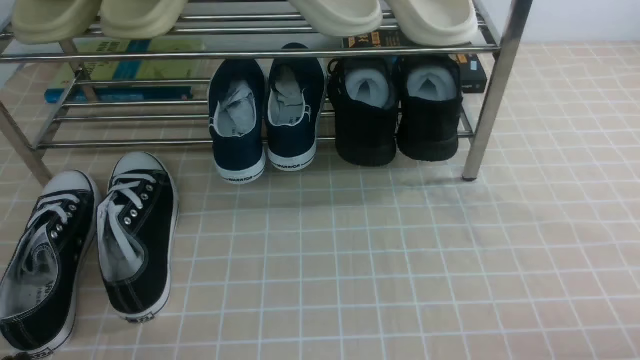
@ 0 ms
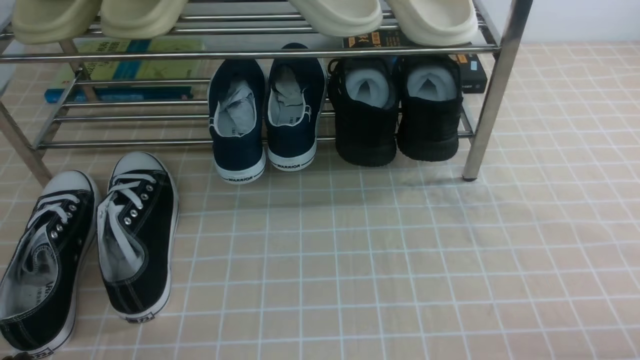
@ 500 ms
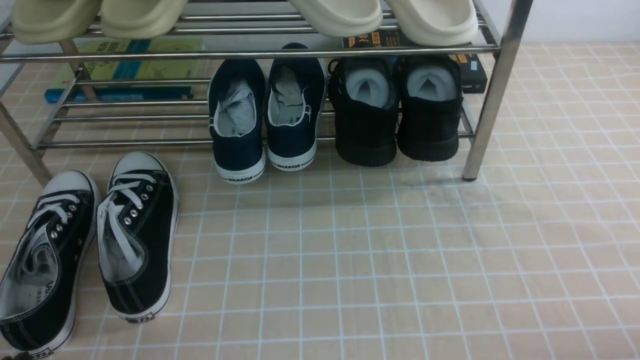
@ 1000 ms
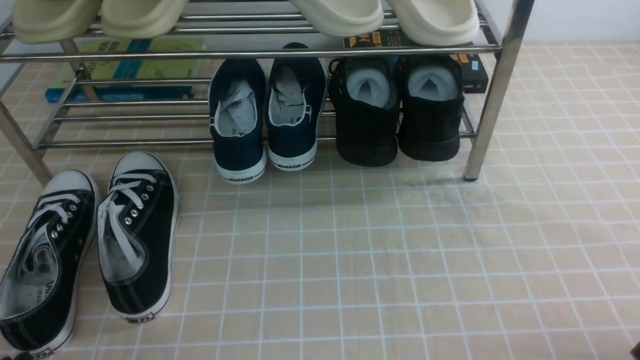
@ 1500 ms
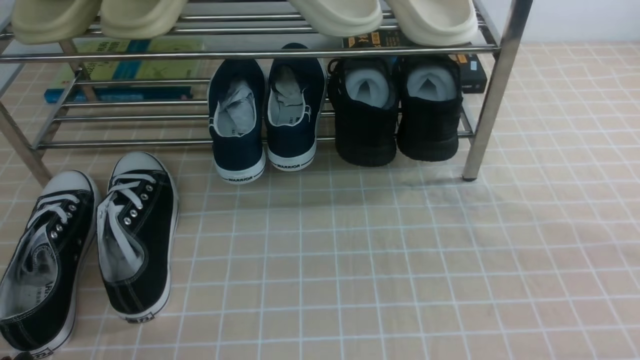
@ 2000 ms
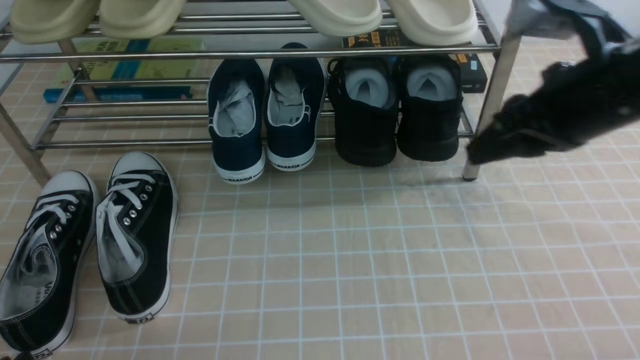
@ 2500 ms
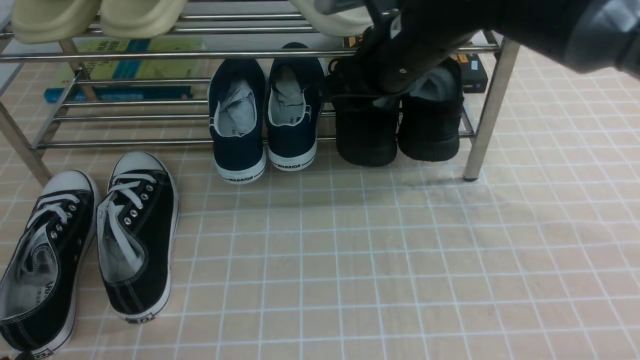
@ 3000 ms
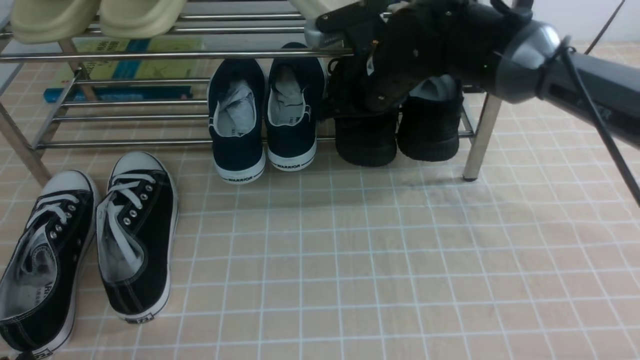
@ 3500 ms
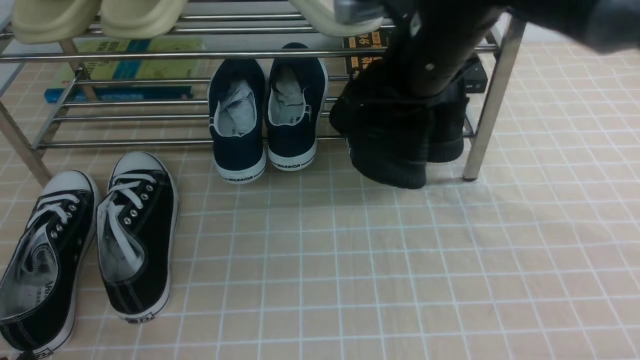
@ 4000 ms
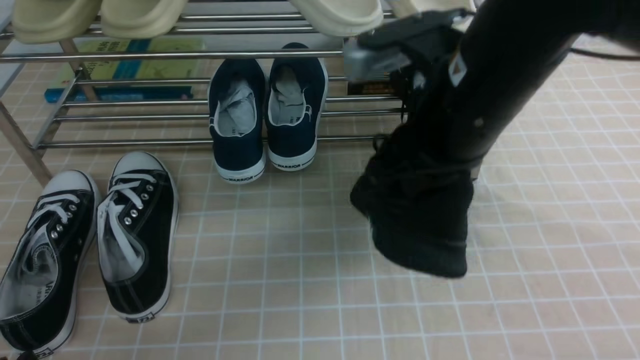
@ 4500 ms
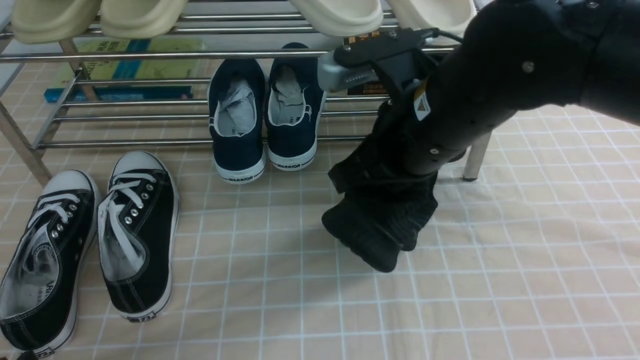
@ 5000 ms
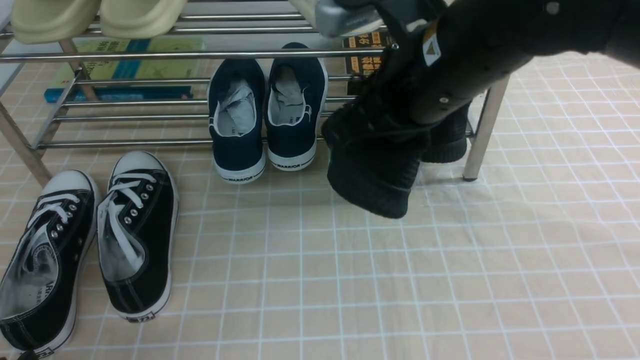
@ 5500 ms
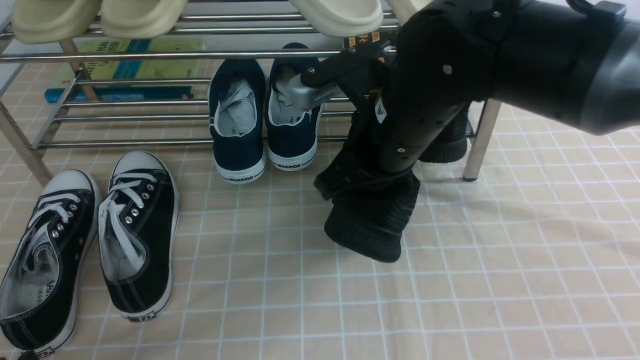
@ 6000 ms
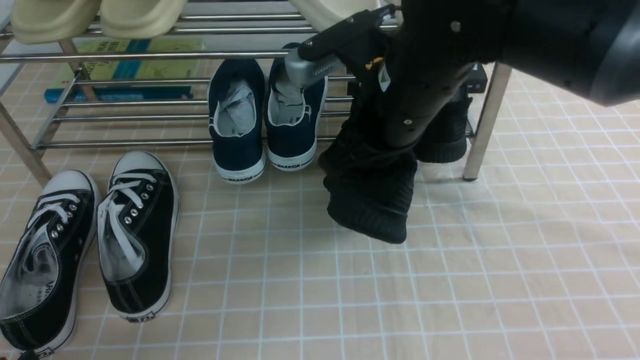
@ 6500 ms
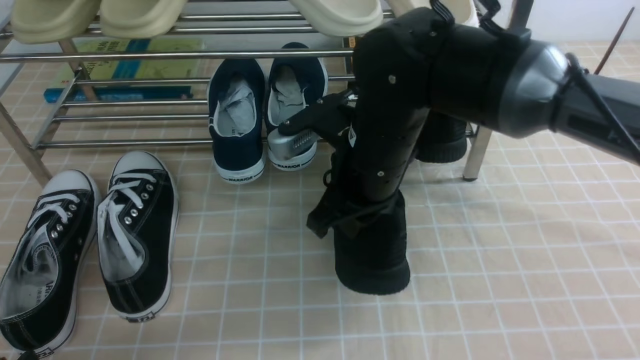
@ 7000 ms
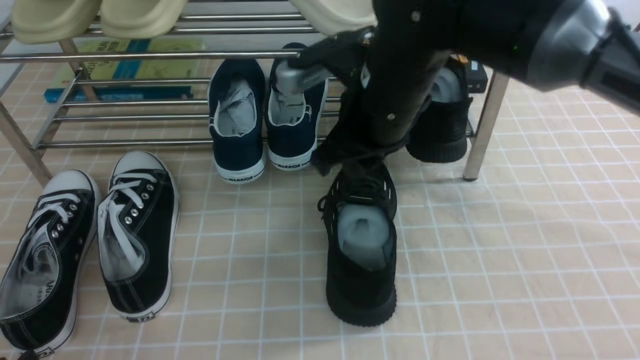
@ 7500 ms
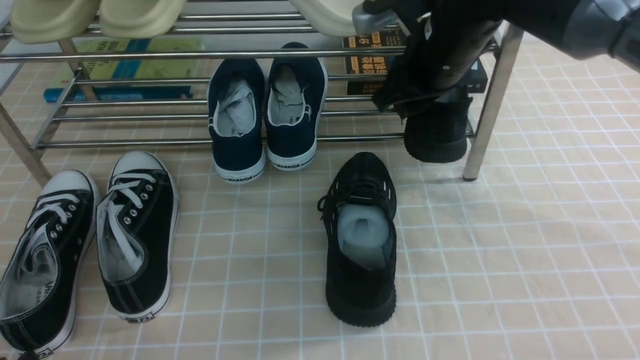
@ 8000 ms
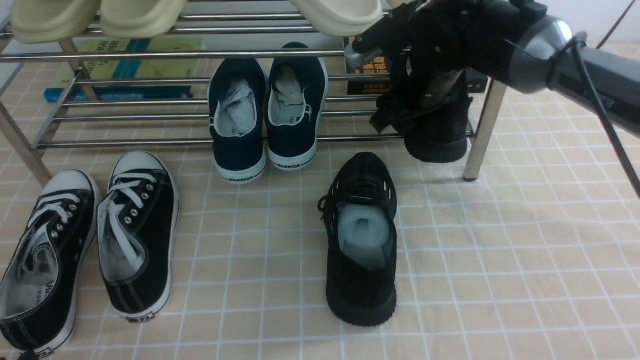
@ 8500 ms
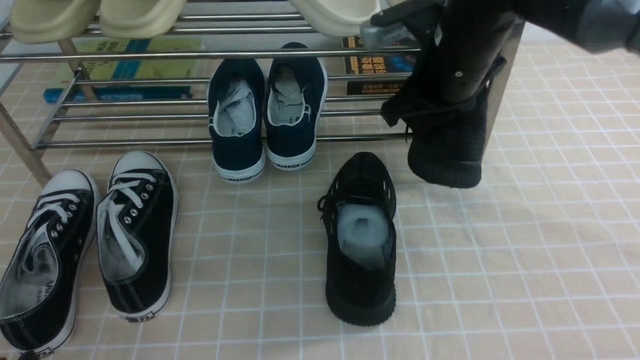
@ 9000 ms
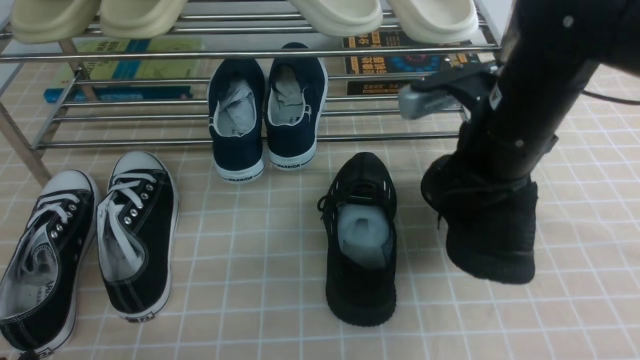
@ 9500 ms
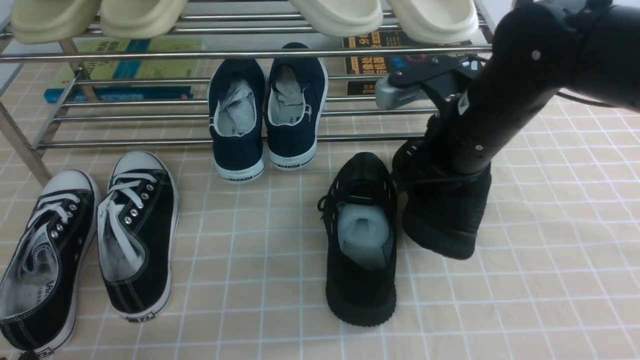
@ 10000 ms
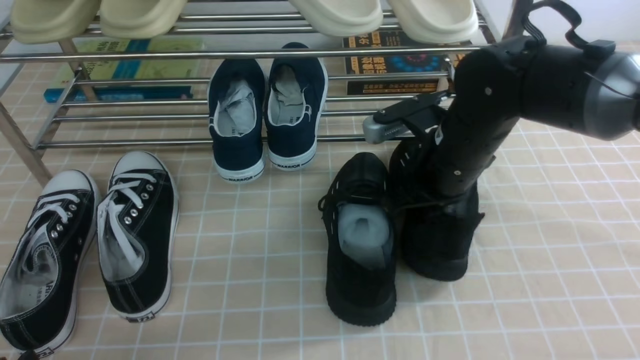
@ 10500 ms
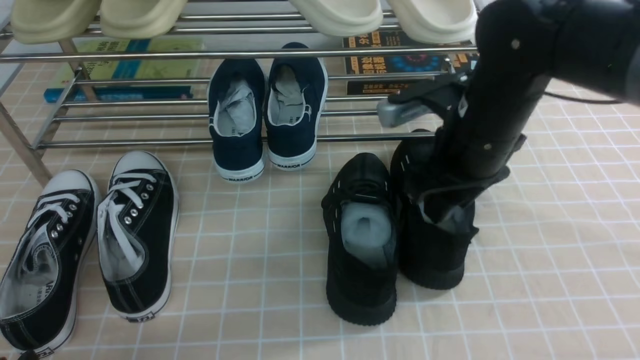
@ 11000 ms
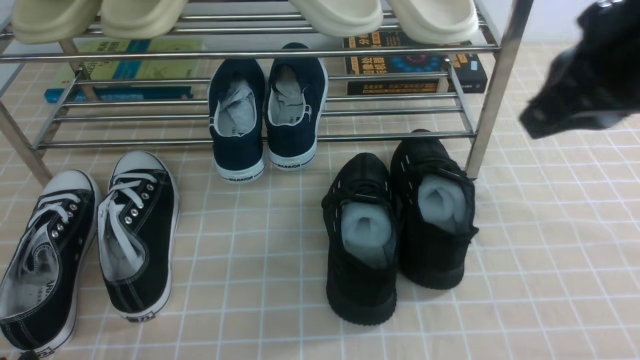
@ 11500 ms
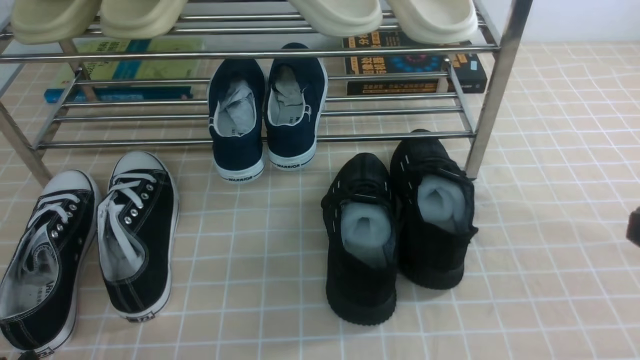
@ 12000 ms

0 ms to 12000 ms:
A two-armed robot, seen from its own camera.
Step, 0 ms to 3500 ms: use the right arm to clamp a shoe on the right side of the shoe rack.
Step, 4000 ms to 7000 ms: use the right arm to take out the clamped shoe from the shoe rack and put it down.
Step, 7500 ms to 8500 ms: use the right arm to clamp a shoe on the right side of the shoe rack.
Step, 9000 ms to 10500 ms: use the right arm to take out the clamped shoe from the shoe rack and put it down.
2000 ms to 4000 ms: The right gripper shifts about 35 cm forward and to the left, and opens, then closes once more; the left gripper opens.
4000 ms to 6000 ms: The right gripper travels backward by some 10 cm.
6000 ms to 8000 ms: The right gripper goes about 10 cm forward, and opens up.
8000 ms to 10000 ms: The right gripper moves backward, approximately 5 cm, and closes.
10000 ms to 12000 ms: The right gripper is displaced backward and to the right by approximately 25 cm, and opens, then closes once more.

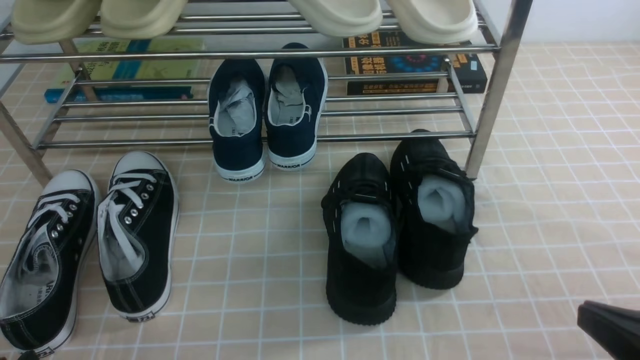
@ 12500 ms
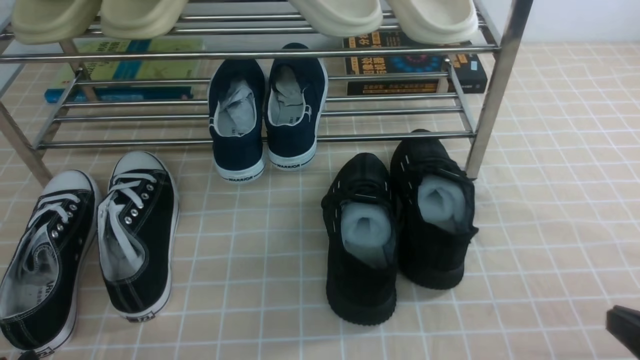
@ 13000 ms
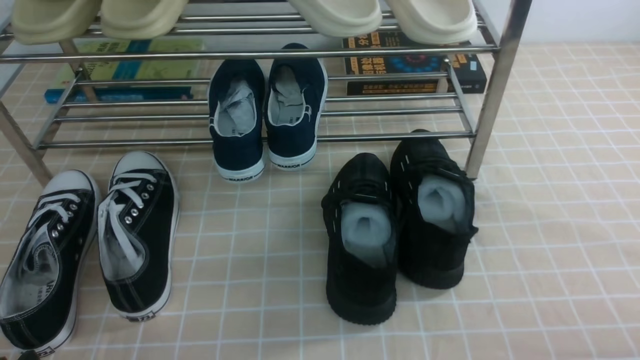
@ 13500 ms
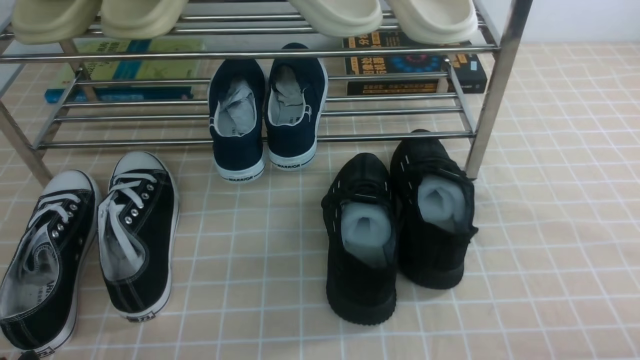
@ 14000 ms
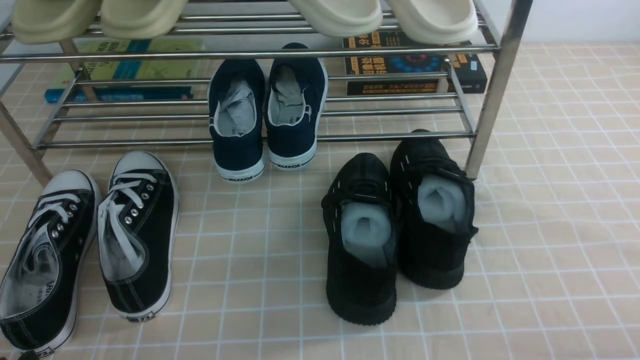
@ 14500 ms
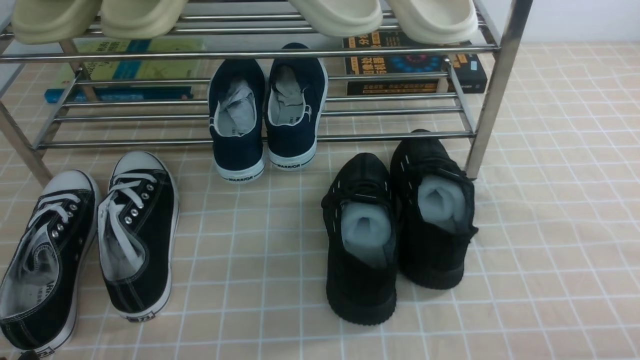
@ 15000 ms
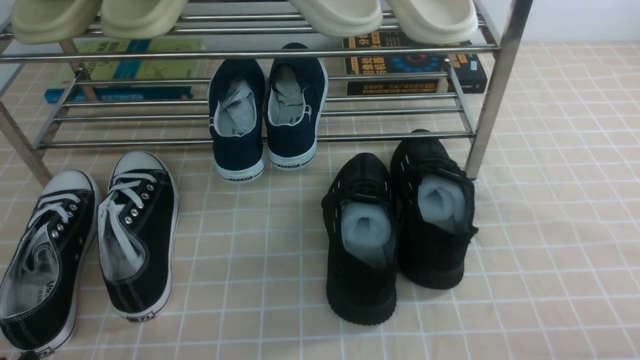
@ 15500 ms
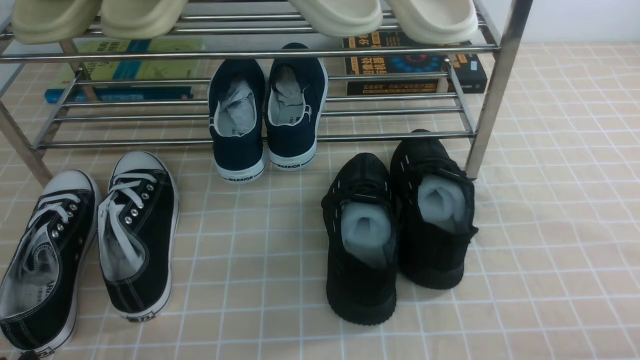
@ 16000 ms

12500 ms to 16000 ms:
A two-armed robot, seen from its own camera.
12500 ms to 14500 ms: The right gripper goes about 10 cm downward and to the right.
14500 ms to 16000 ms: Both grippers stay about where they are.

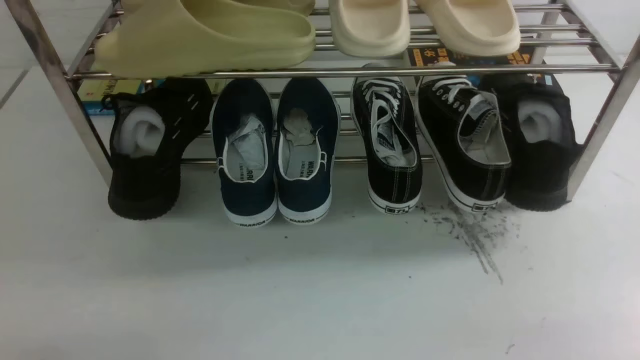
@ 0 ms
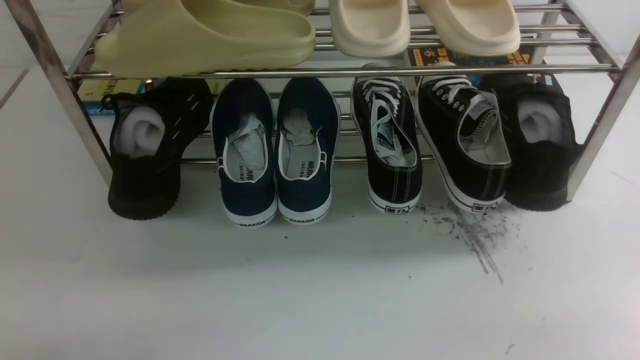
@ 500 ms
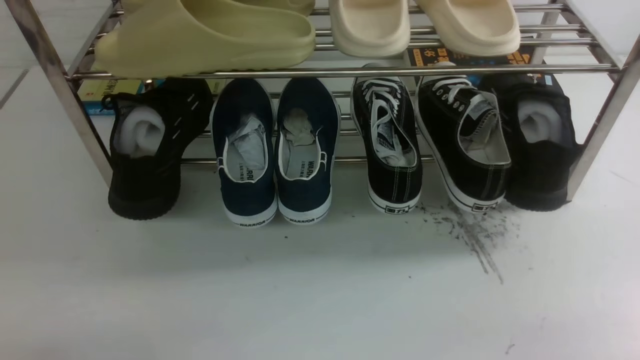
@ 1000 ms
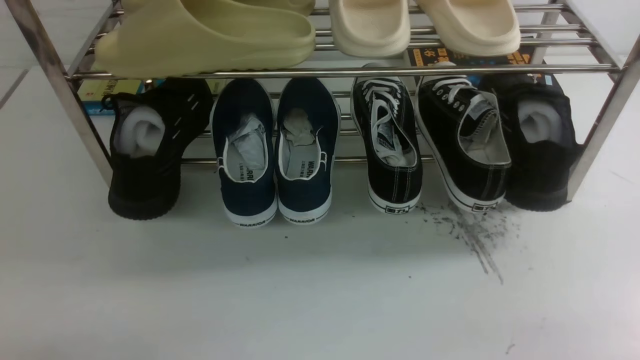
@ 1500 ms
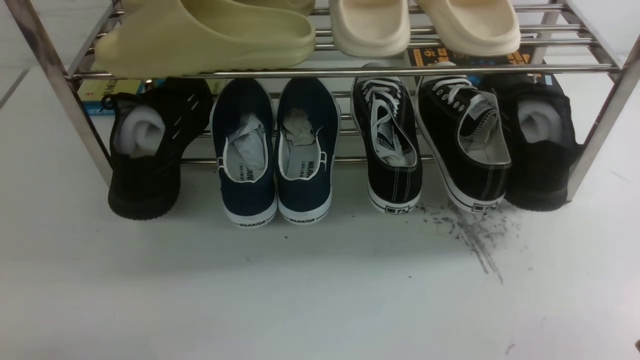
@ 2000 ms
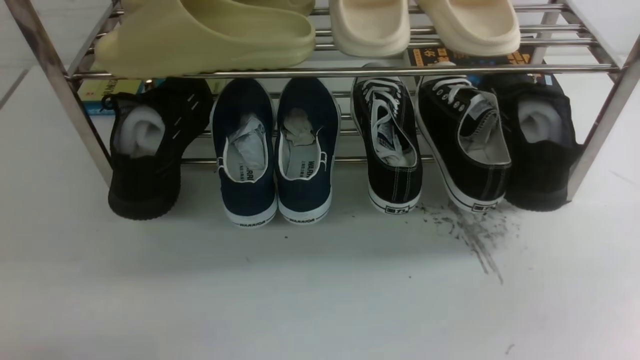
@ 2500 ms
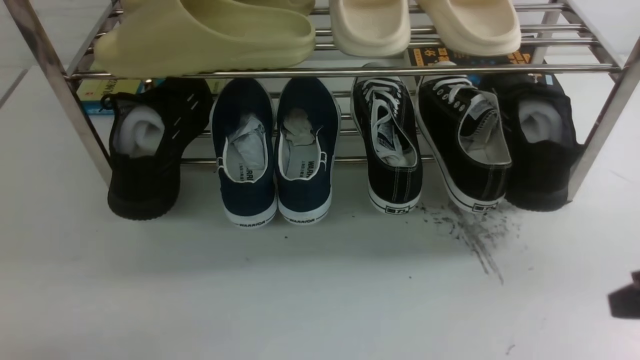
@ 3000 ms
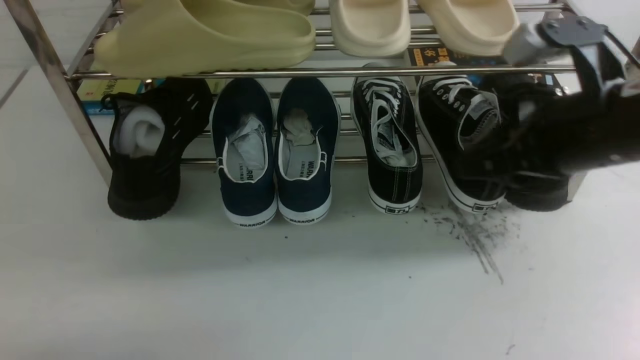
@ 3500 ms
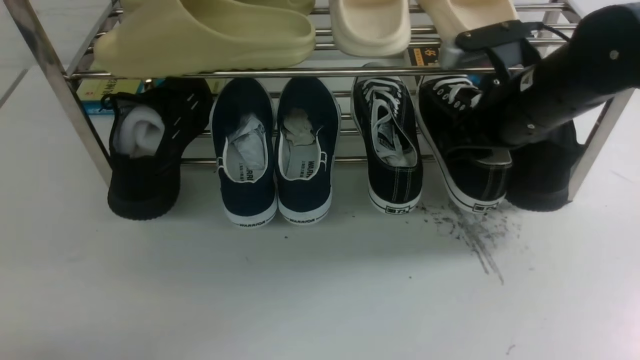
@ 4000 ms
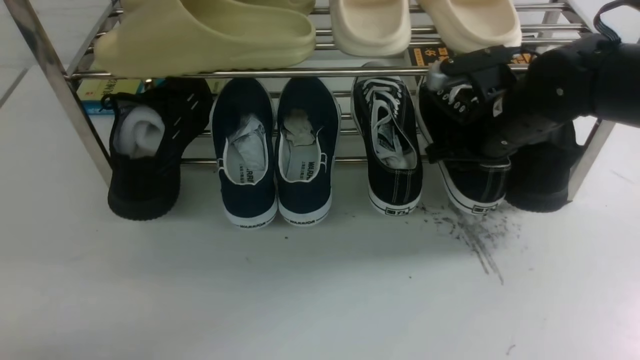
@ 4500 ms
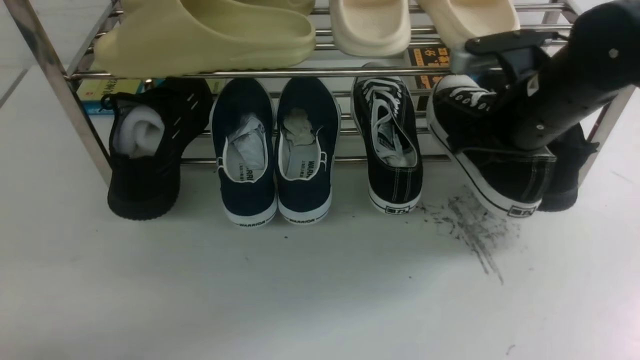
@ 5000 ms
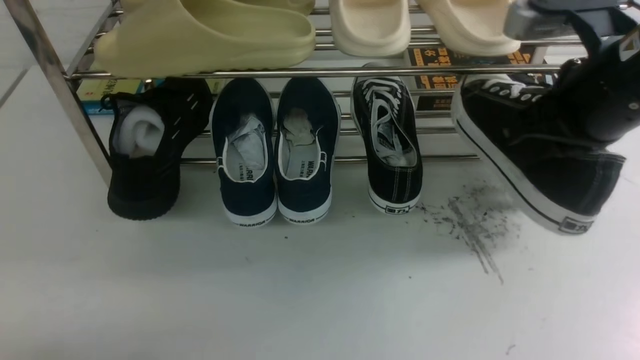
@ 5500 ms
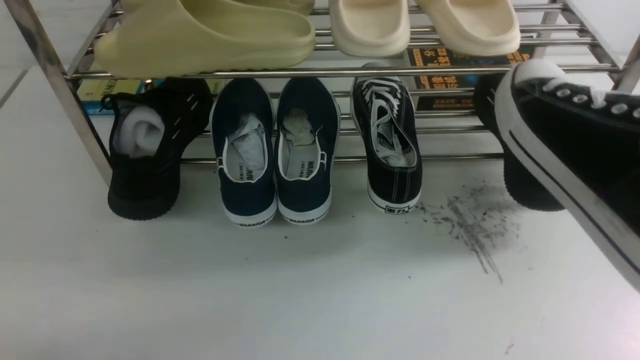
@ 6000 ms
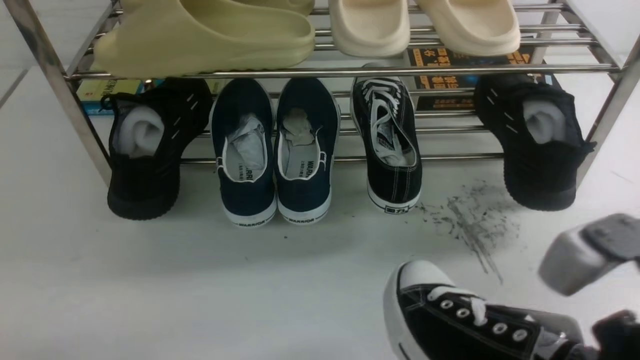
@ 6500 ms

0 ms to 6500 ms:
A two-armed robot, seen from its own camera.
Step, 0 ms to 5000 ms: use the right arm to clamp a shoe on the right side of the shoe rack.
2000 ms to 4500 ms: The right gripper heads forward, covering about 30 cm, and closes and opens again.
4500 ms to 6500 ms: The right gripper heads backward, covering approximately 25 cm, and closes up.
